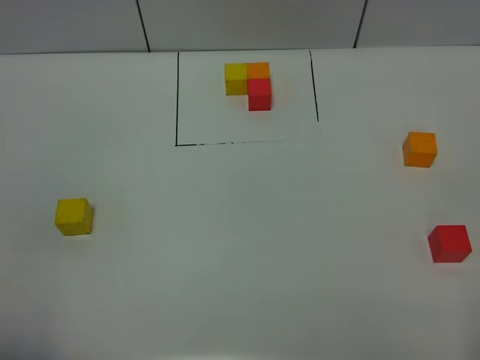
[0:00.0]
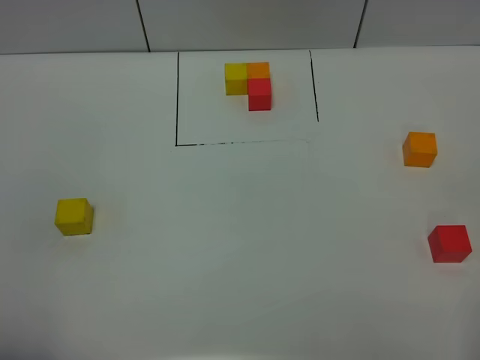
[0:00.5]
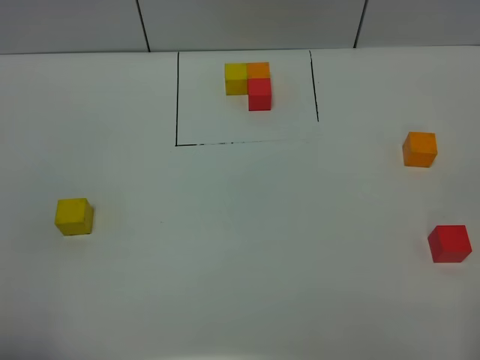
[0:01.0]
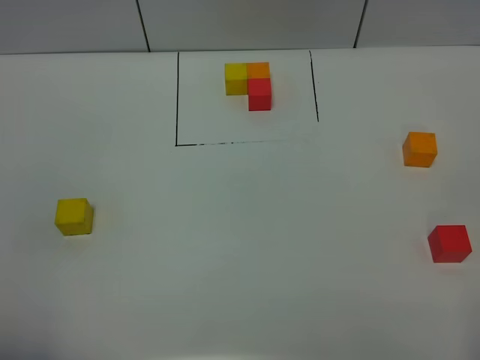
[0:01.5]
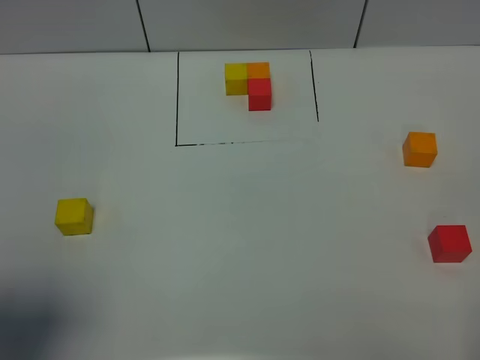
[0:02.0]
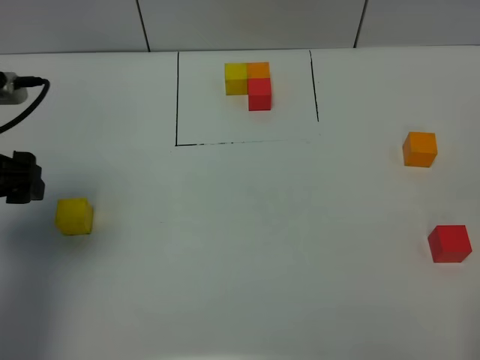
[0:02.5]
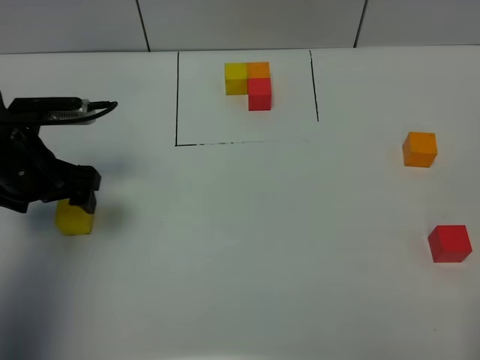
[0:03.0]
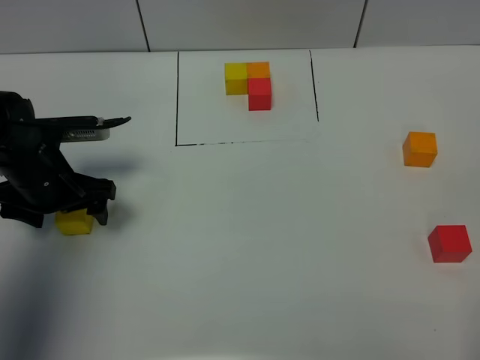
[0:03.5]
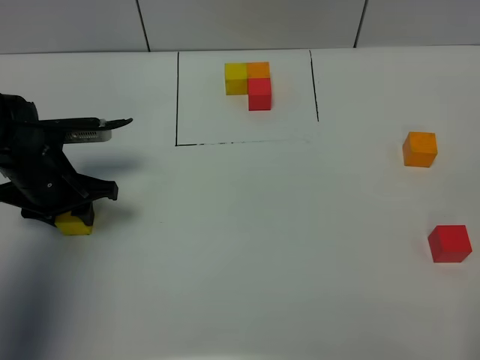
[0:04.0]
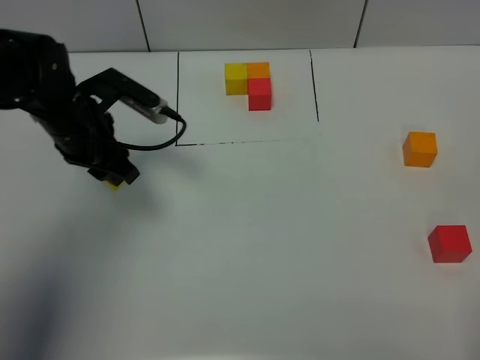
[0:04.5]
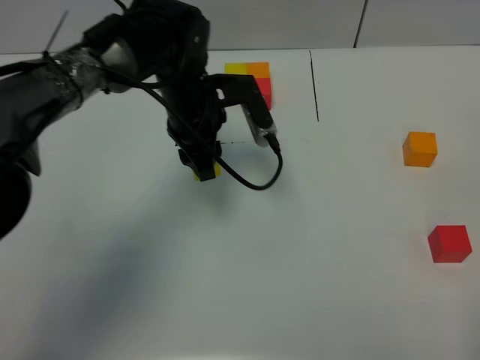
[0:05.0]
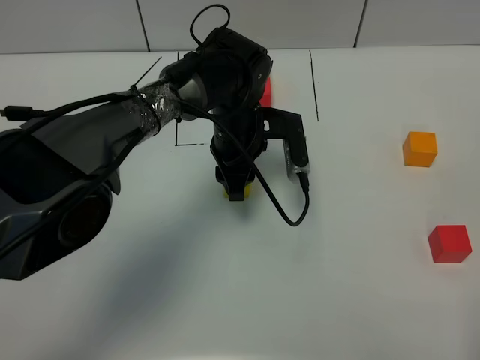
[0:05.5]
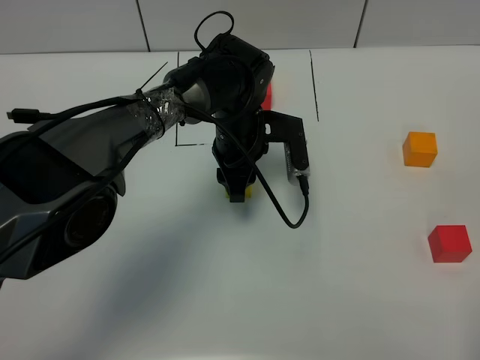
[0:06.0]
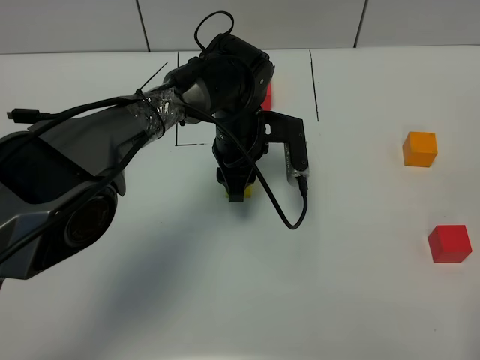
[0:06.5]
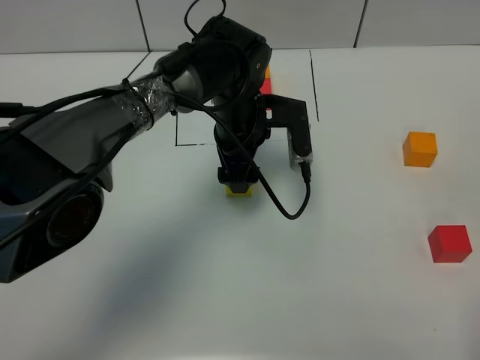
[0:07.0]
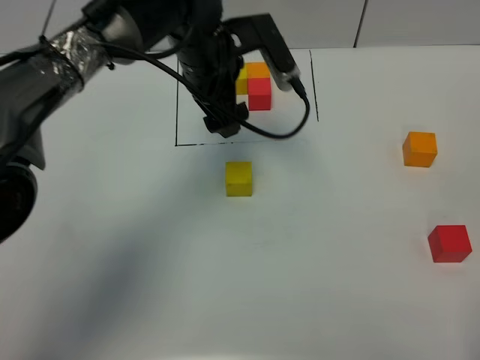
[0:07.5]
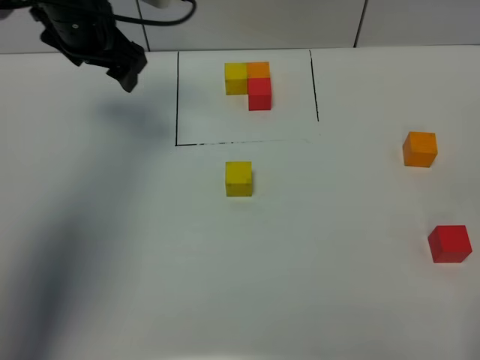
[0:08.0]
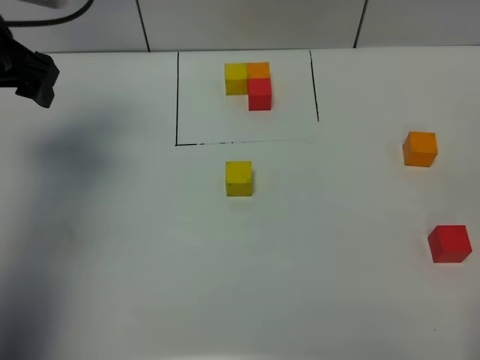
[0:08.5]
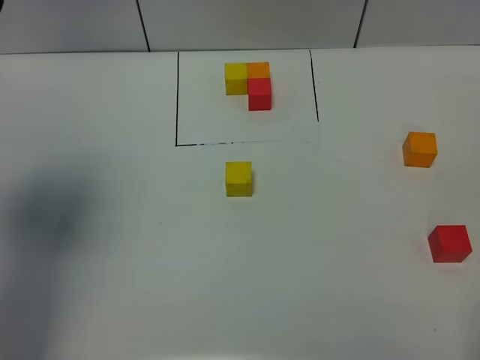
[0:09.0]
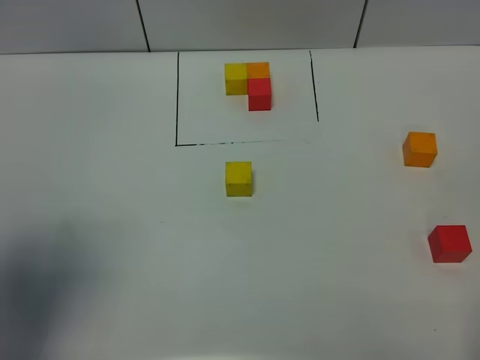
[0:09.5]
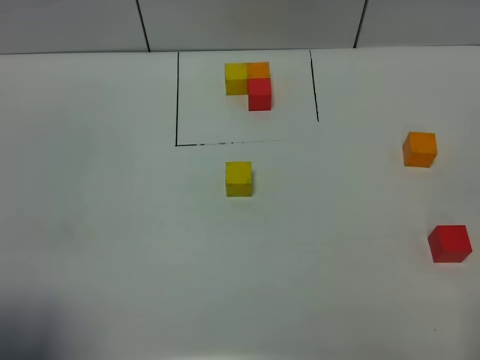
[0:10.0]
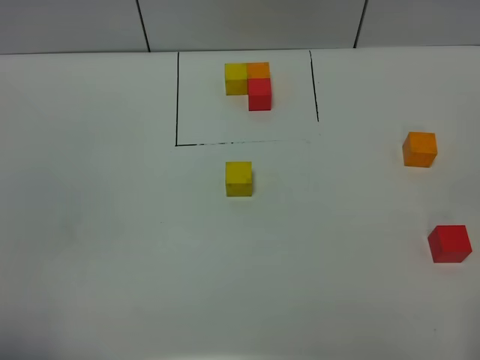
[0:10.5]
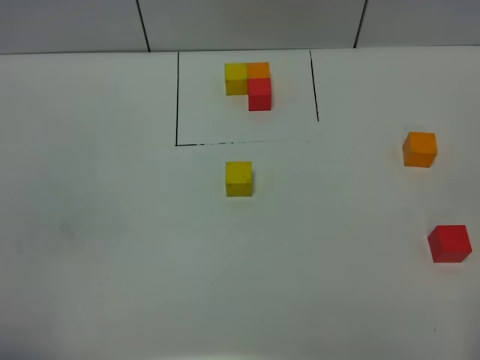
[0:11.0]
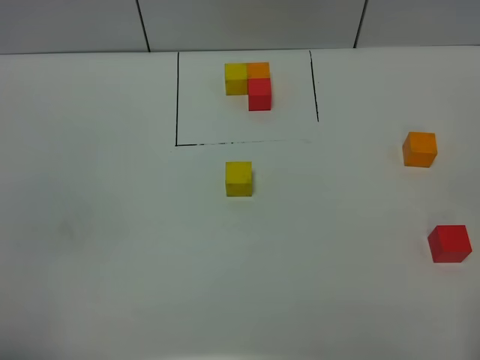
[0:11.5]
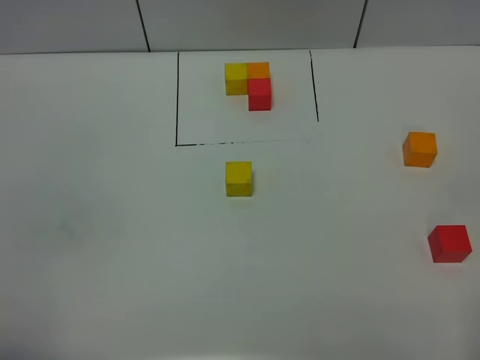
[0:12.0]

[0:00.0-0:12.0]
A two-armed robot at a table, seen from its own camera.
Task of the whole recording: According to the building block template in front, assemble the scattered blocks together.
Step, 0:00.0 to 0:06.5: Put the yellow build block in the center of the table.
0:00.0 to 0:02.0: The left gripper heads forward, covering about 10 cm.
0:02.0 to 0:04.0: The left gripper travels forward and downward by roughly 30 cm, and closes up.
0:04.0 to 0:06.0: The left gripper shifts approximately 25 cm to the right.
0:06.0 to 0:08.0: The left gripper moves to the left and upward, some 25 cm, and opens its fingers.
0:08.0 to 0:10.0: The left gripper travels backward by roughly 40 cm.
0:10.0 to 0:12.0: The left gripper heads backward, covering roughly 5 cm.

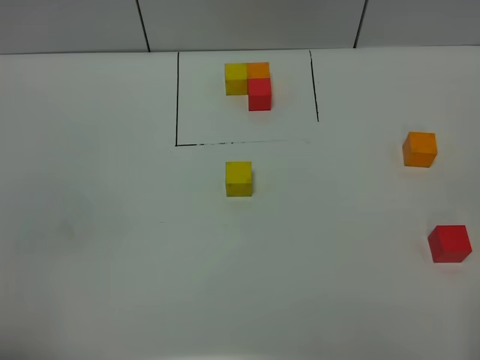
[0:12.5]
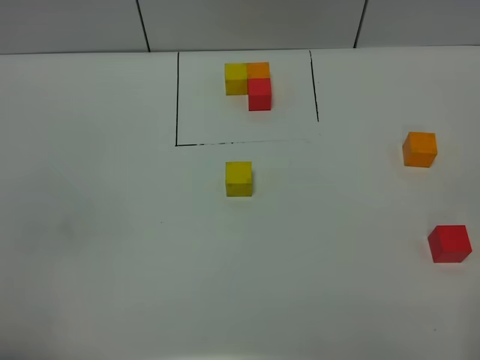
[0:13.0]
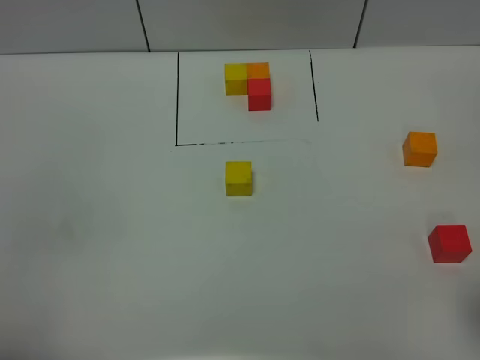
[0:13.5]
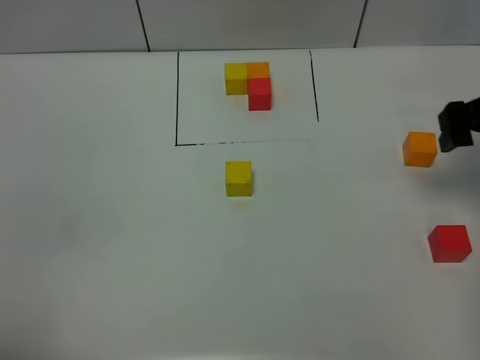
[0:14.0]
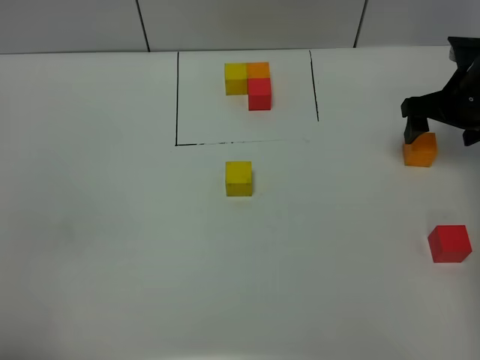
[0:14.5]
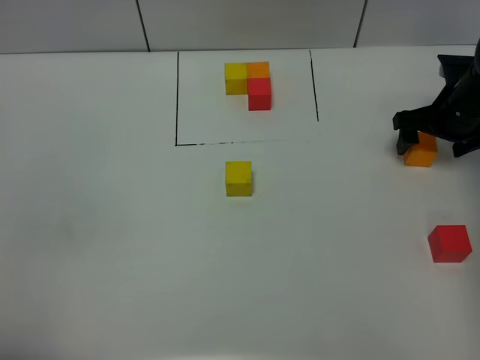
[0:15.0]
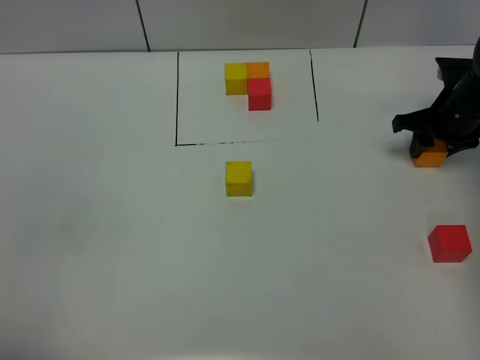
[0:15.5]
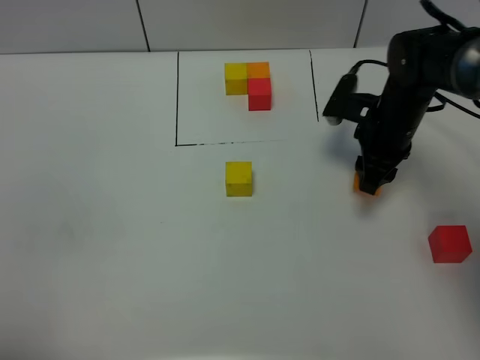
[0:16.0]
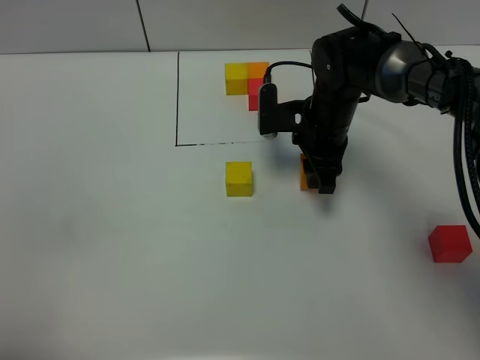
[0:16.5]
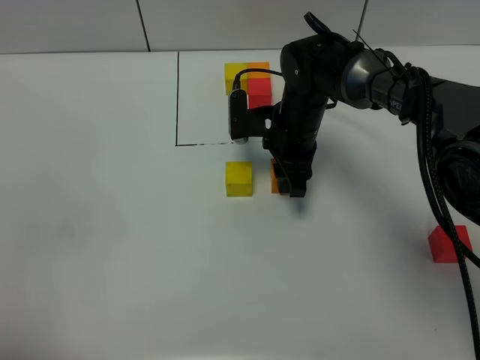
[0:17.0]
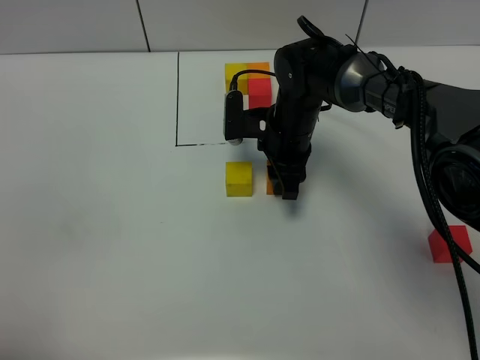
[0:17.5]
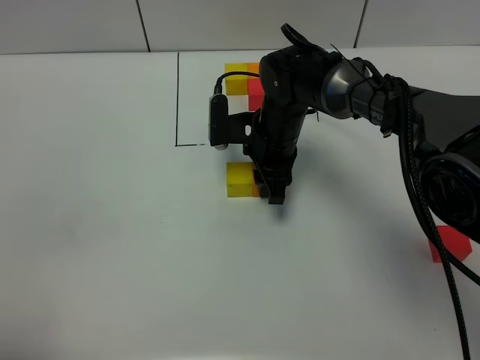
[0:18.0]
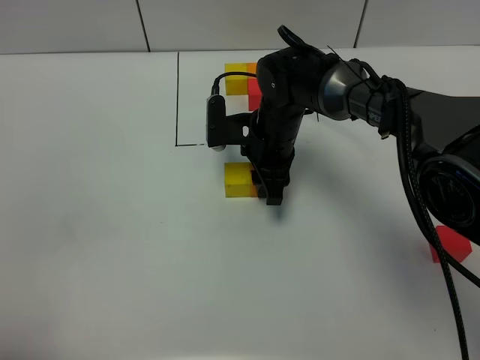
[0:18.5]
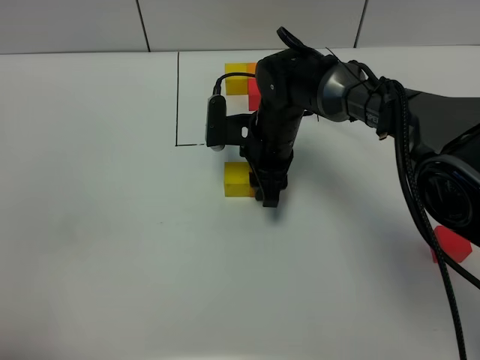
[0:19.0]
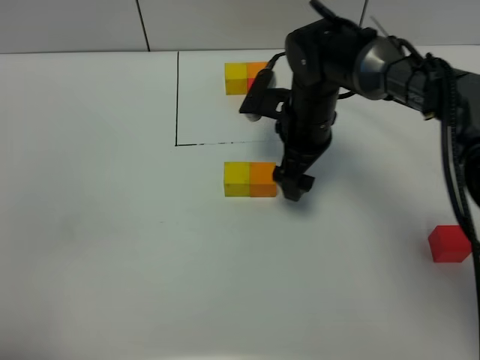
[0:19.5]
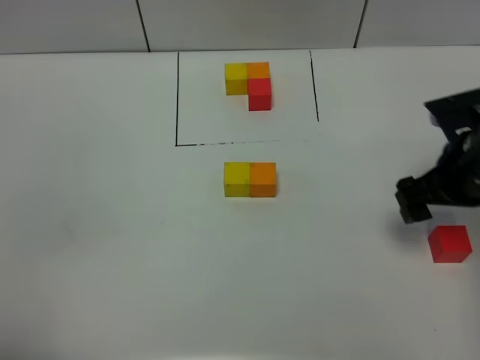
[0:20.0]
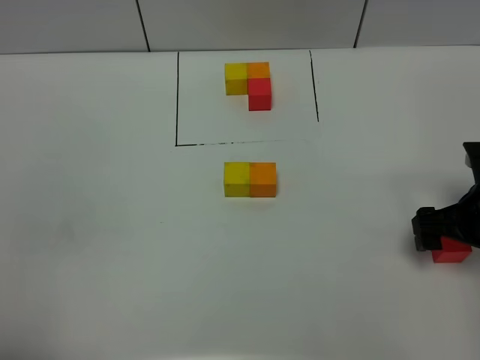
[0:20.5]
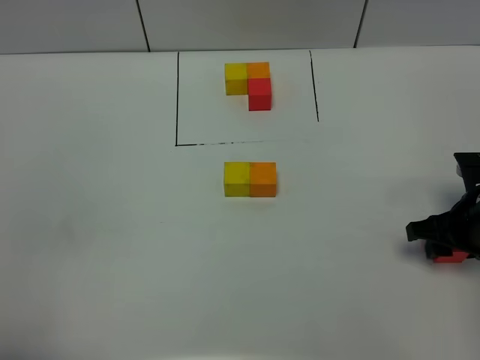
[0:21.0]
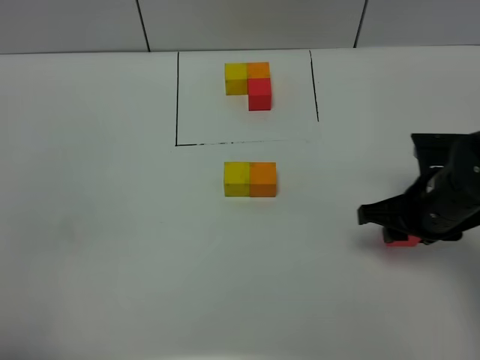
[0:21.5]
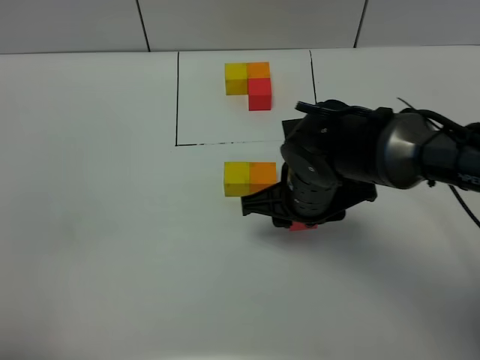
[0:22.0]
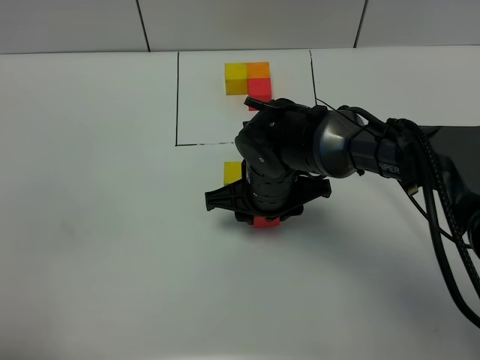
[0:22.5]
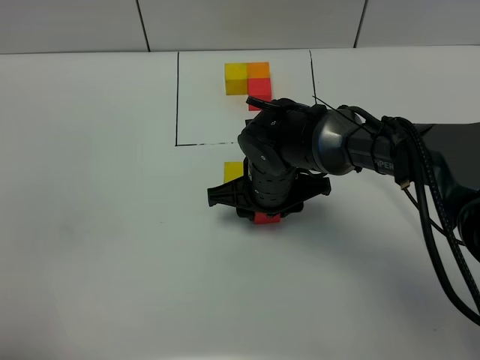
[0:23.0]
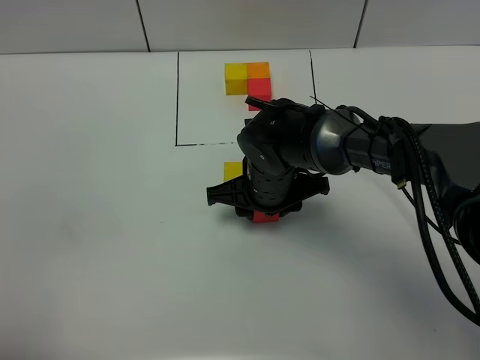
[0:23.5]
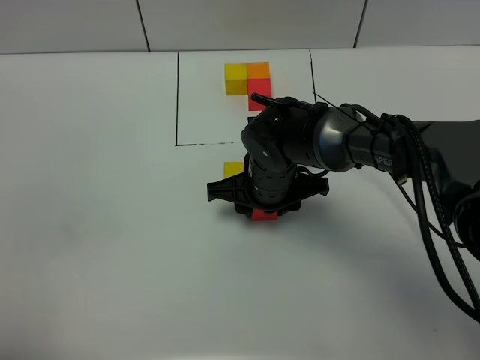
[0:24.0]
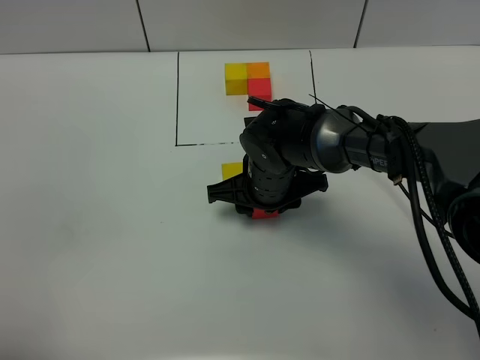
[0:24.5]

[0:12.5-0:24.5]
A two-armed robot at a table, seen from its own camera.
Task of the whole recording: According to the building block template in front, assemble the scattered blocks together.
Step, 0:12.5 to 0:19.0: Put the orange build block on the right of the yellow build block.
0:12.5 to 0:14.5: The right gripper heads forward, covering about 40 cm.
0:14.5 to 0:16.5: The right gripper goes about 20 cm to the left, and closes its fingers.
0:16.5 to 0:18.5: The right gripper moves to the left, approximately 5 cm.
0:18.5 to 0:20.5: The right gripper travels to the right and backward by roughly 30 cm, and opens its fingers.
0:20.5 to 0:22.5: The right gripper shifts some 25 cm to the left, and closes.
0:22.5 to 0:24.5: The grippers move only a little.

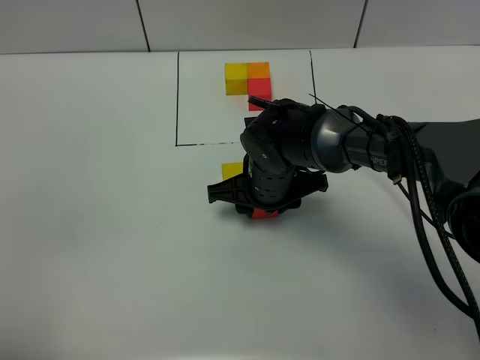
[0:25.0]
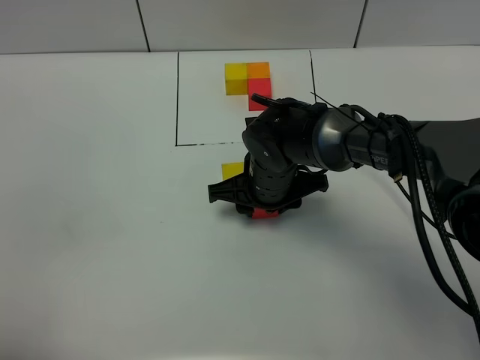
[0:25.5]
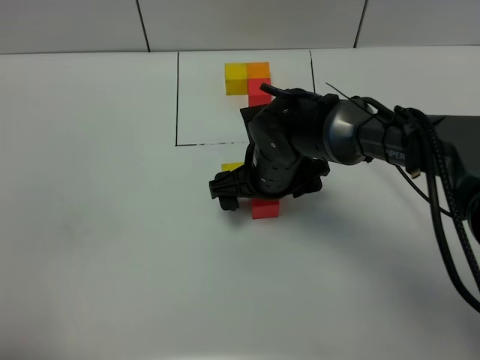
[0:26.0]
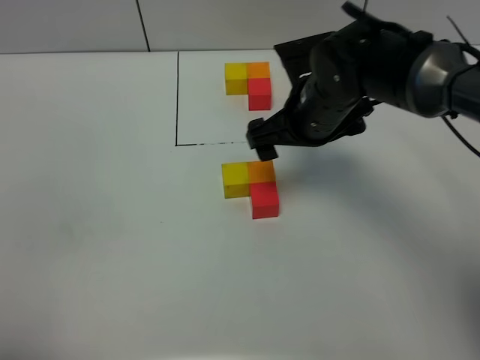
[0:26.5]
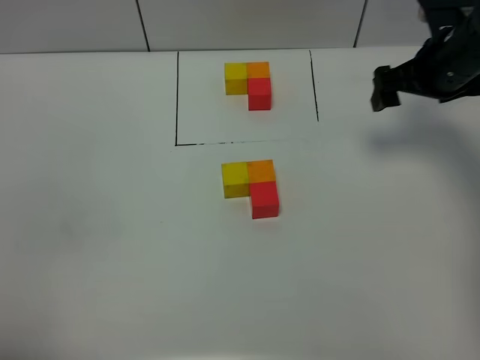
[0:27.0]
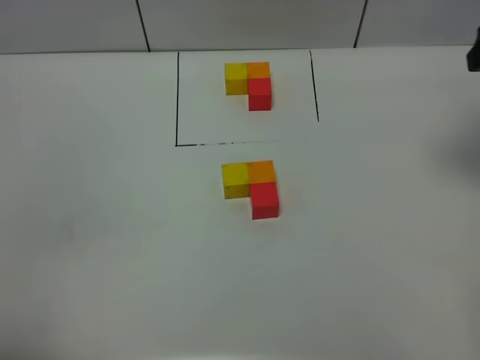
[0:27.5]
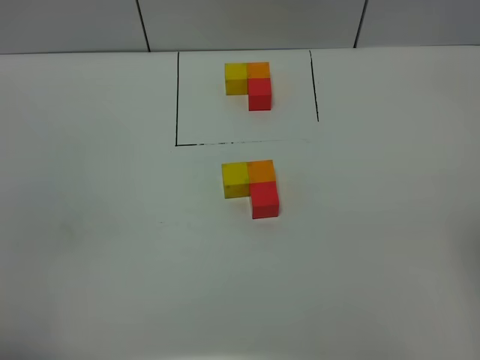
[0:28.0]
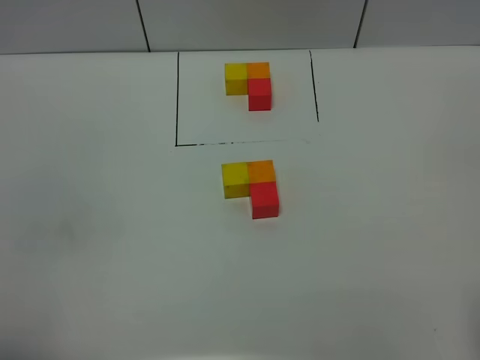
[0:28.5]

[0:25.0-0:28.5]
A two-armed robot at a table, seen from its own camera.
Task of the whole recording: According to the building block template in front, assemble the scattered blocks together.
0:25.0 to 0:27.0: The right gripper shifts approximately 25 cm to the right and upward, and opens.
0:27.0 to 0:28.5: The right gripper moves backward, roughly 40 cm.
